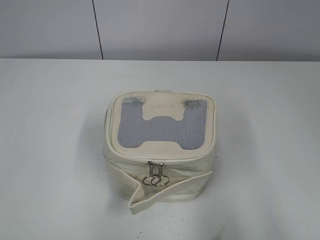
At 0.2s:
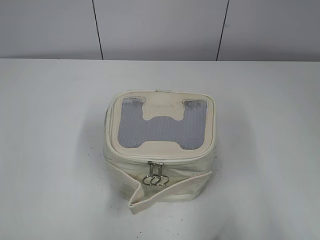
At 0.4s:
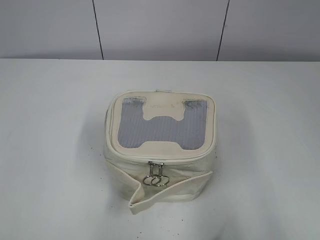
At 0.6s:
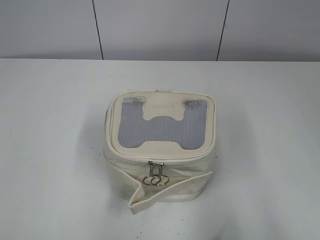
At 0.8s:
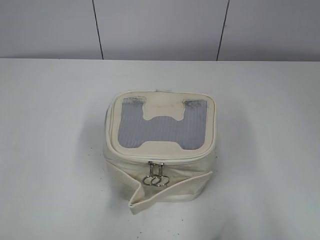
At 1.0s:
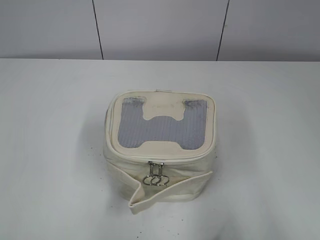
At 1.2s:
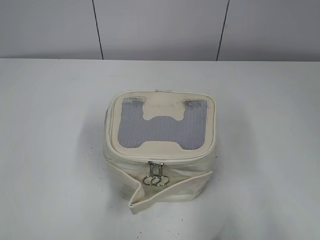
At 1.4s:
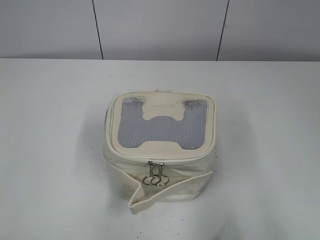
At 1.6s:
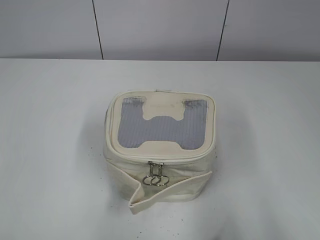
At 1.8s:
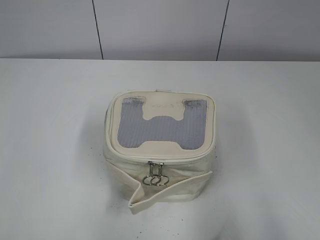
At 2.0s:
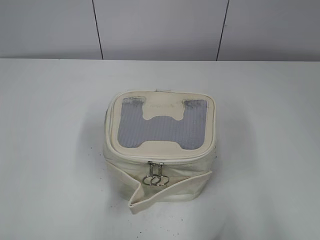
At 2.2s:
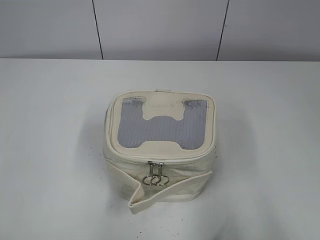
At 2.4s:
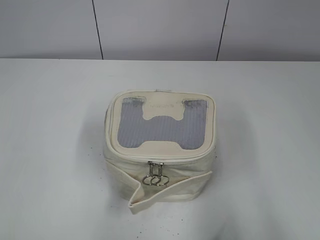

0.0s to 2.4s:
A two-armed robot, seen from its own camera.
1.2s to 2.4s: The two grippers keep their place.

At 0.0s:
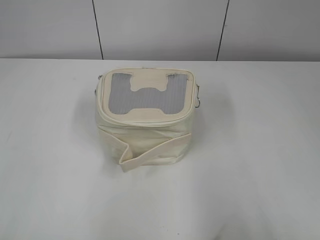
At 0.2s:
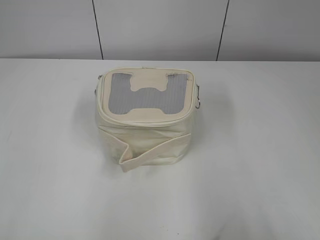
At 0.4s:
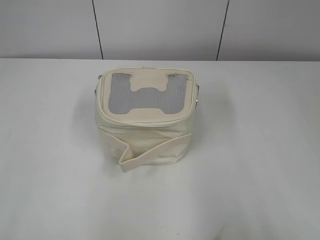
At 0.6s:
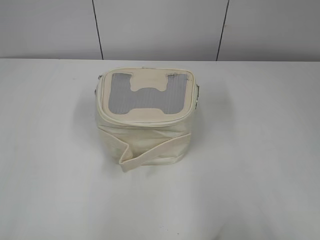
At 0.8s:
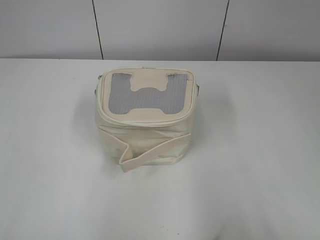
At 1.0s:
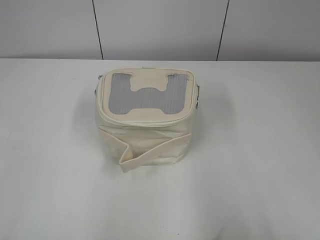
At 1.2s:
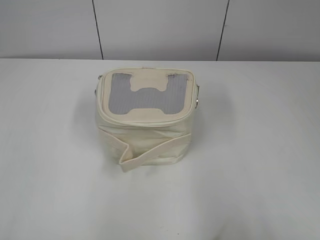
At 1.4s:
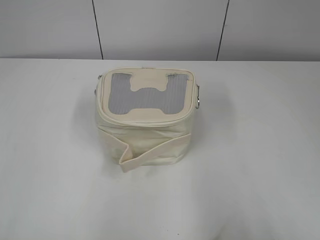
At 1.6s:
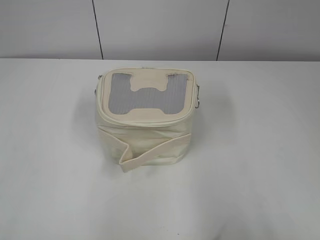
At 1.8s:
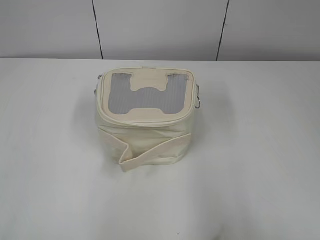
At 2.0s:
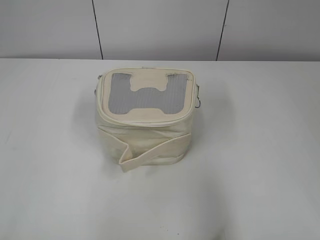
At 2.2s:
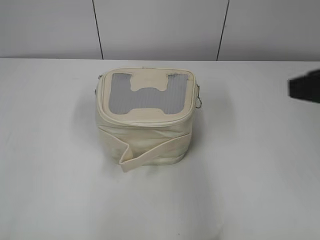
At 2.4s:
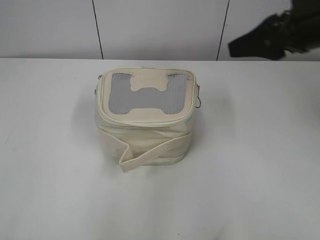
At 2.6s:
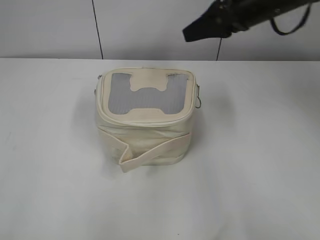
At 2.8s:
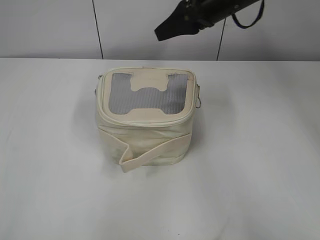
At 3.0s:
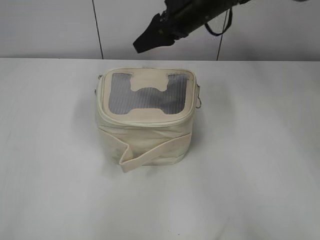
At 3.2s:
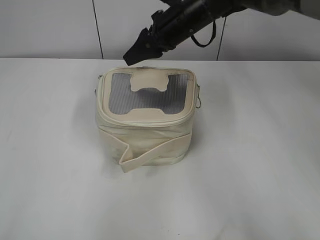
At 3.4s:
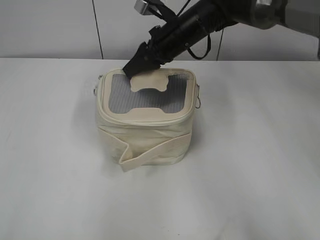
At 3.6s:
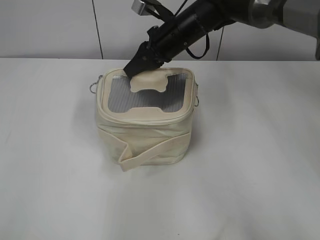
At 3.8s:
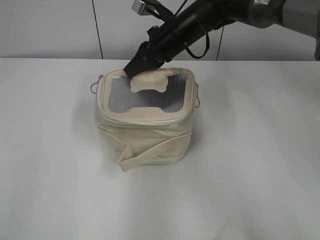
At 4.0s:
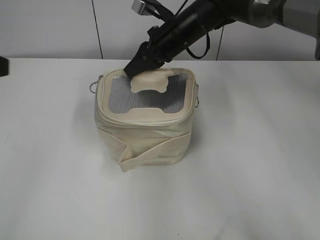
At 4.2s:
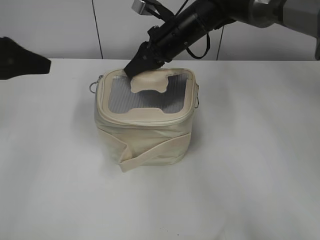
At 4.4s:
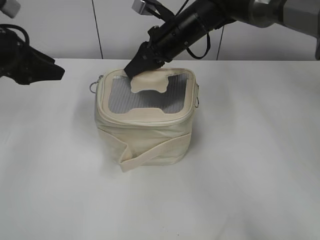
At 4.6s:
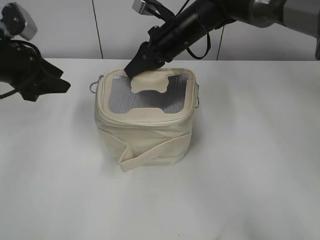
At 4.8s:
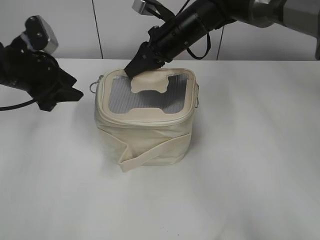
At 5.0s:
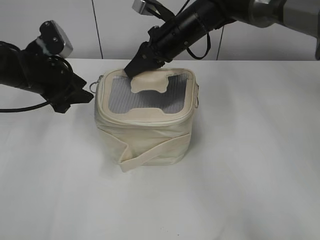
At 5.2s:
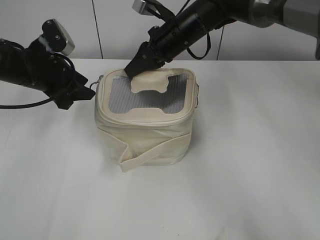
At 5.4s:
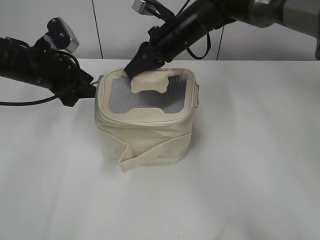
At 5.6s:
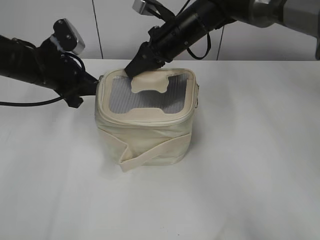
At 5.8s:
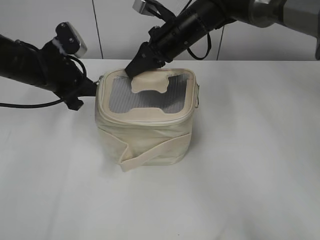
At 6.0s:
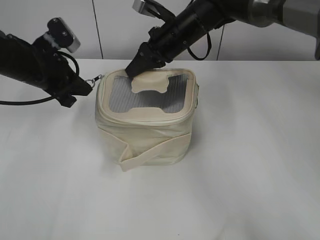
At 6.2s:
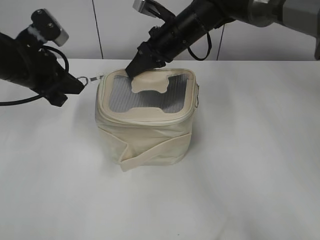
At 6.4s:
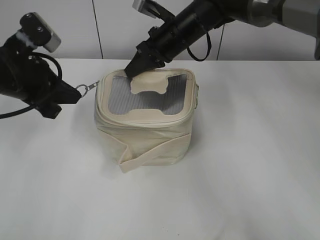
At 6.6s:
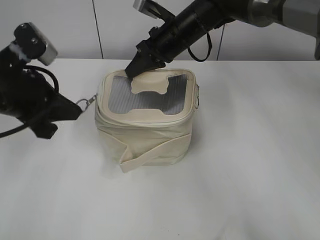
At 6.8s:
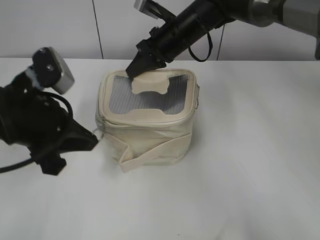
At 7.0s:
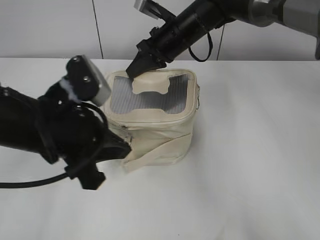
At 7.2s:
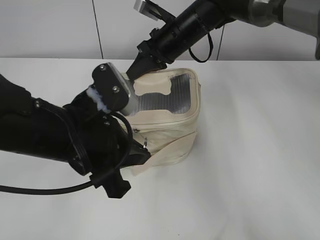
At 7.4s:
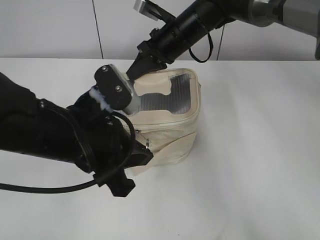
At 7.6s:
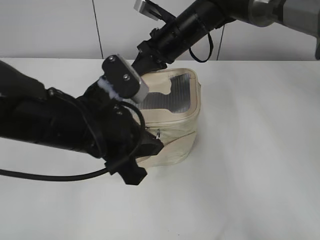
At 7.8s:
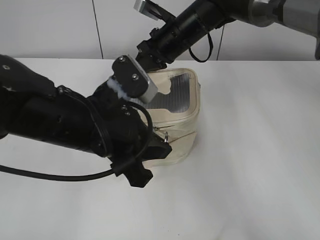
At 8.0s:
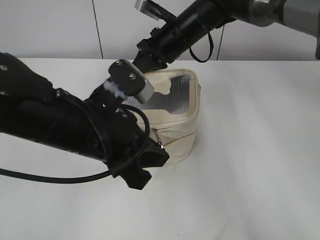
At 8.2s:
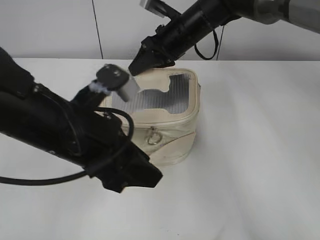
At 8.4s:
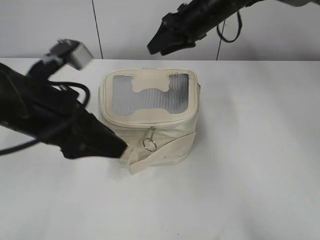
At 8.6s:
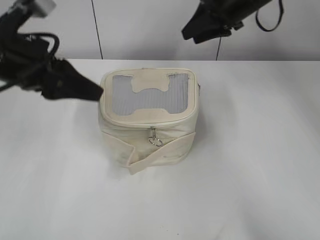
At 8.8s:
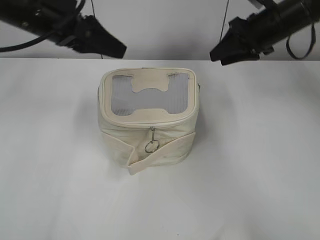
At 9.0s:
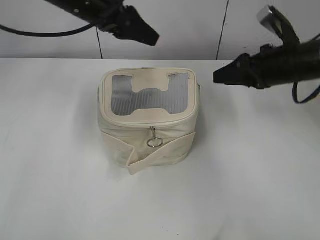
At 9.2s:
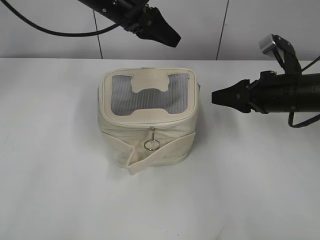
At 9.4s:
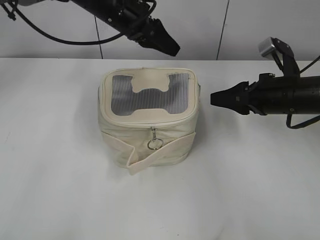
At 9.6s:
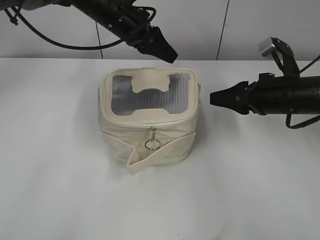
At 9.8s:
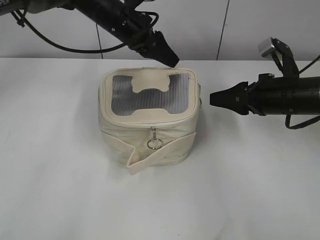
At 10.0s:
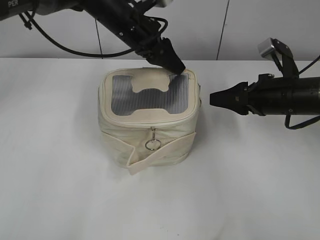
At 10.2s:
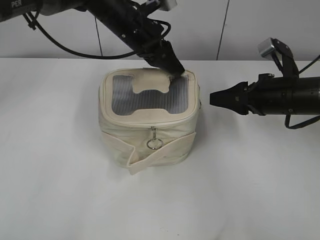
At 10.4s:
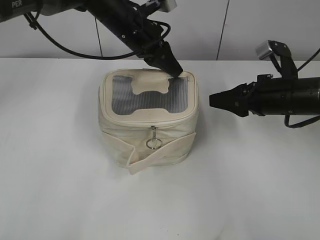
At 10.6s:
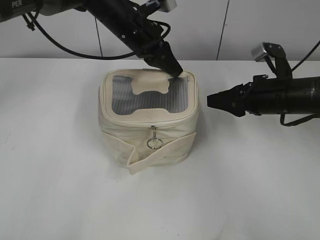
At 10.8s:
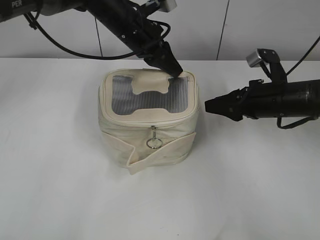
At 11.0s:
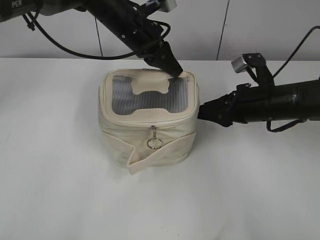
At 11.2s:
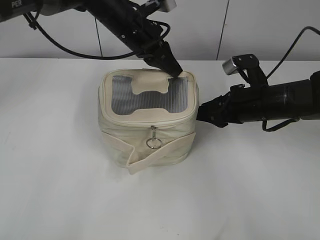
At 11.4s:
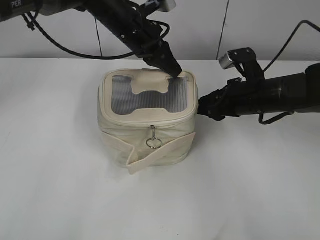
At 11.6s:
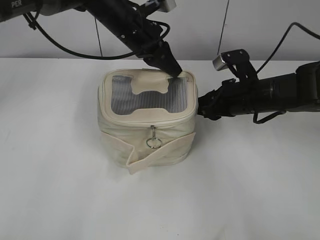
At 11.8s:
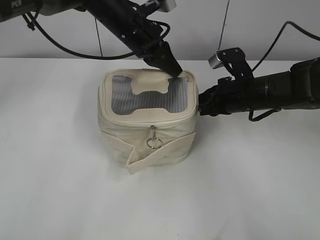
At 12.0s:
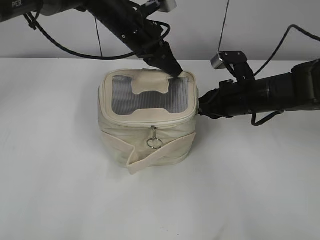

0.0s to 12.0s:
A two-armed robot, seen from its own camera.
Step, 0.0s to 8.0s: Pull open the zipper with your left hand.
1.6s to 3.0s: The right gripper shifts approximately 50 cm forward and to the left.
3.0s to 4.4s: The left gripper shifts roughly 30 cm forward, and opens its fingers. The right gripper travels downward by some 5 cm, and closes its fingers.
4.4s to 6.0s: The left gripper heads downward and to the right, covering some 10 cm, and closes.
6.0s to 7.6s: The left gripper shifts about 20 cm backward and to the right.
7.6s to 9.0s: The right gripper is displaced to the right by about 20 cm, and opens its fingers, while the left gripper is displaced forward and upward by approximately 20 cm, and opens its fingers.
9.0s to 10.4s: The left gripper moves to the right and downward, roughly 10 cm, and closes; the right gripper shifts about 10 cm backward and downward.
10.4s to 12.0s: The right gripper heads to the left, covering roughly 5 cm, and closes up.

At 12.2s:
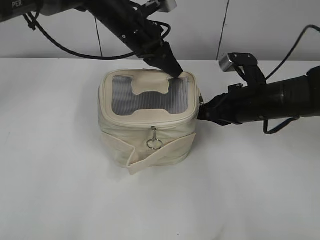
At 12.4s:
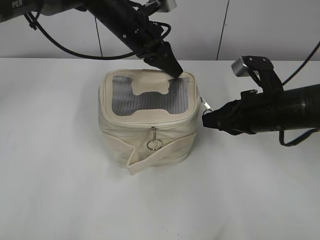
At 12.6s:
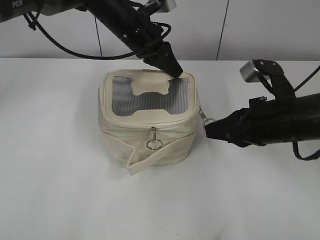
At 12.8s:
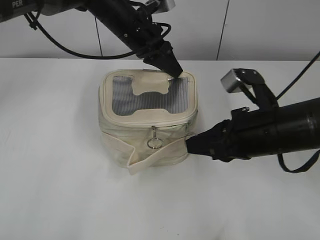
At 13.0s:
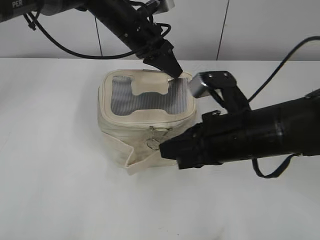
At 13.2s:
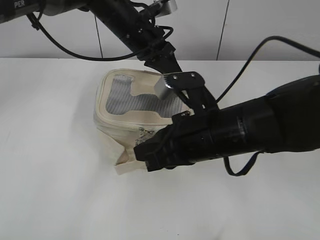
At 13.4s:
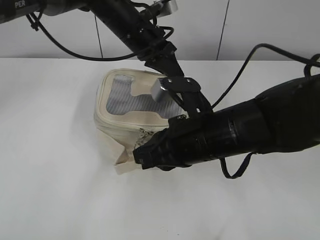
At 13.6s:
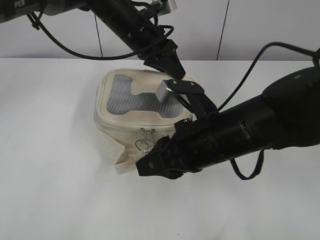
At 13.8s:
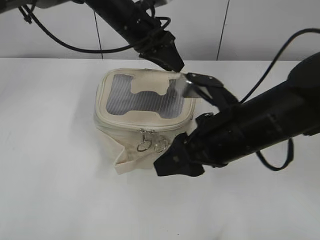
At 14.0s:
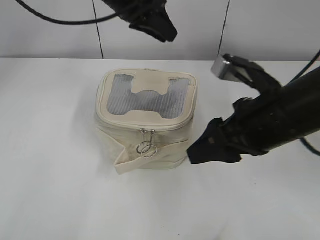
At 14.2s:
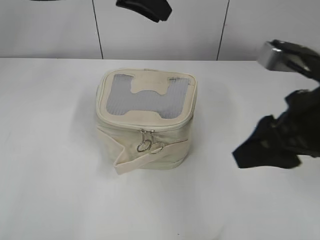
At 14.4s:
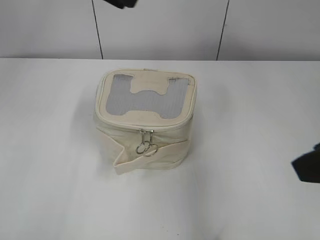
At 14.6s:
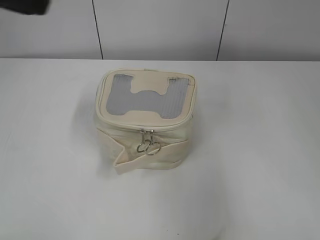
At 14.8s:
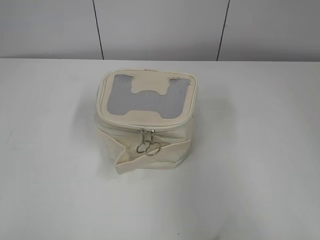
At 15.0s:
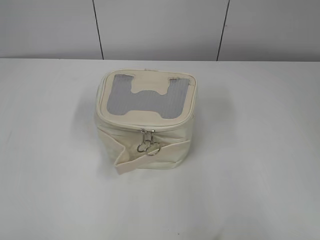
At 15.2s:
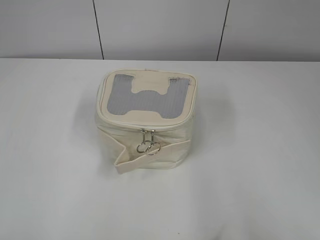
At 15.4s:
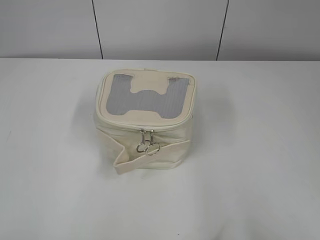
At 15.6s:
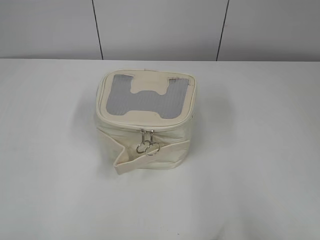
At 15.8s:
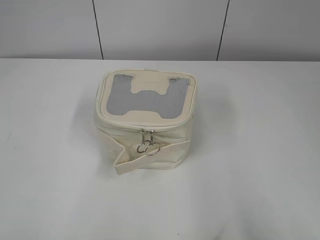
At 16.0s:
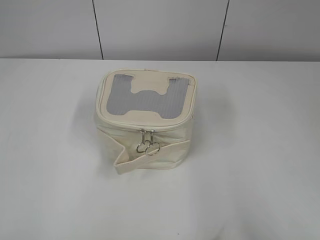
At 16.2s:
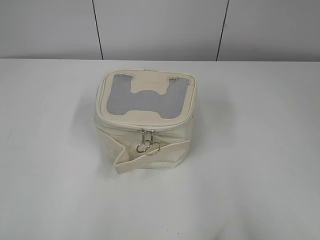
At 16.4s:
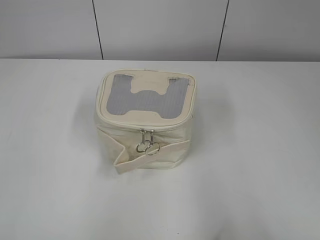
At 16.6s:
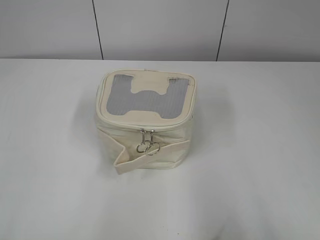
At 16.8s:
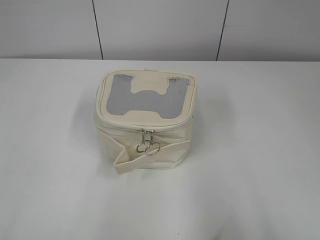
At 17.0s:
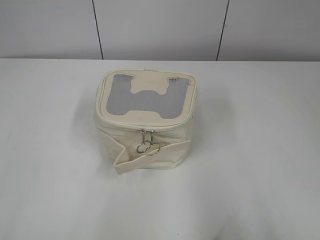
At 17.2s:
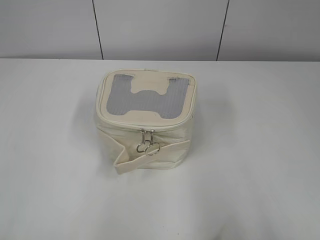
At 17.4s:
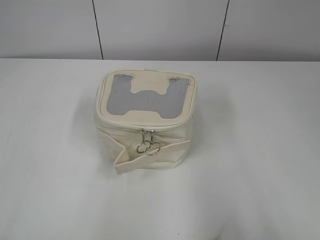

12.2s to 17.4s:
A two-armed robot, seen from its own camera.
12.2s to 14.0s: The right gripper shifts about 15 cm backward and upward, reaches approximately 10 cm to the left, then returns, and opens up, while the left gripper travels upward by some 5 cm, and opens its fingers.
14.0s to 15.6s: The left gripper goes roughly 50 cm backward and to the left, while the right gripper shifts about 30 cm backward and to the right.
